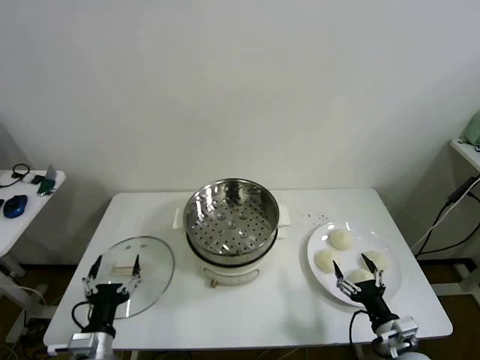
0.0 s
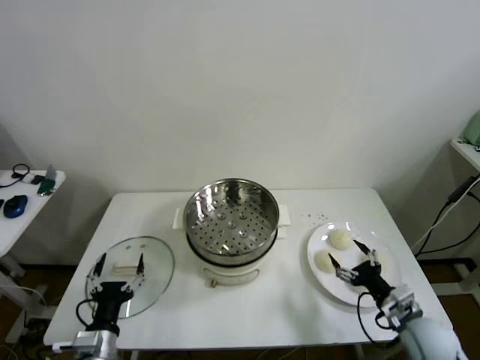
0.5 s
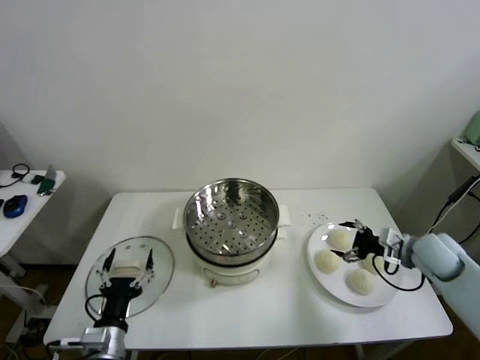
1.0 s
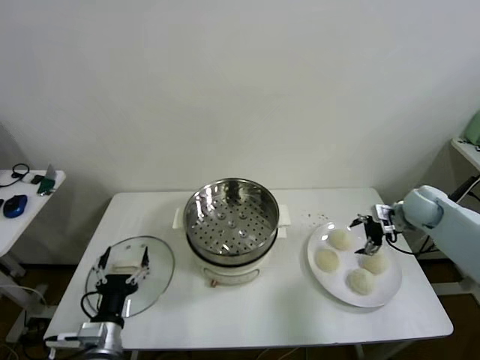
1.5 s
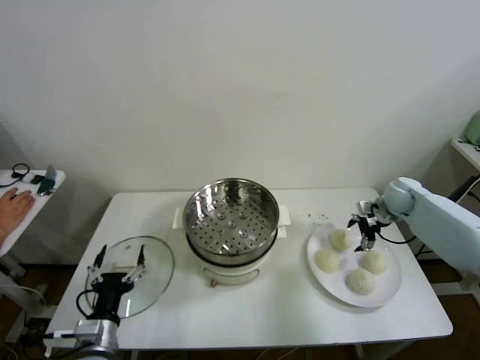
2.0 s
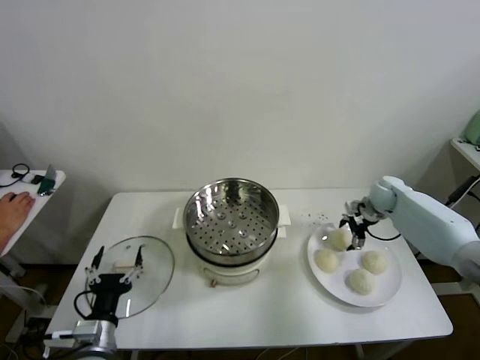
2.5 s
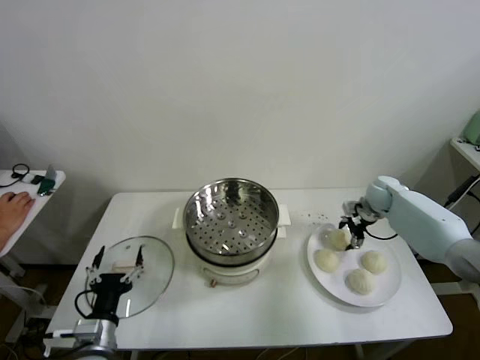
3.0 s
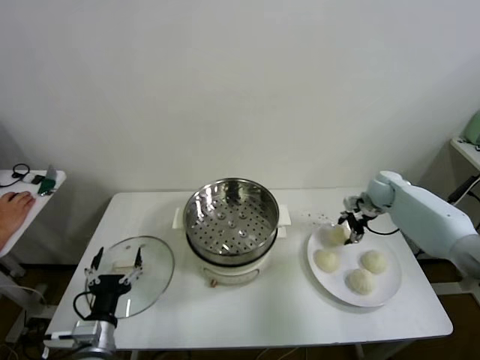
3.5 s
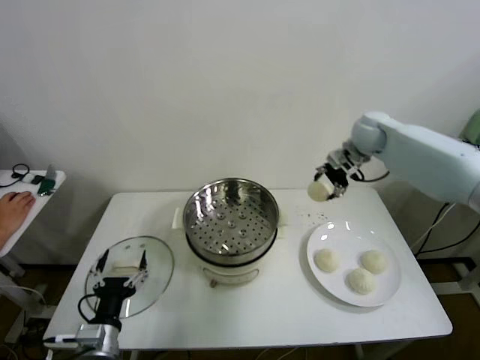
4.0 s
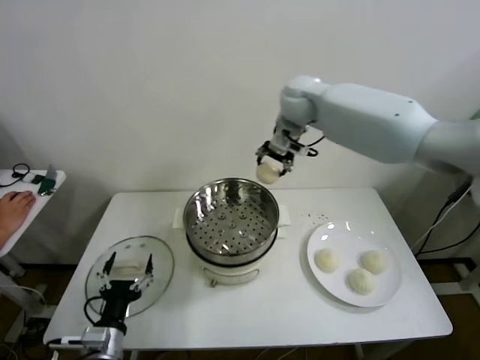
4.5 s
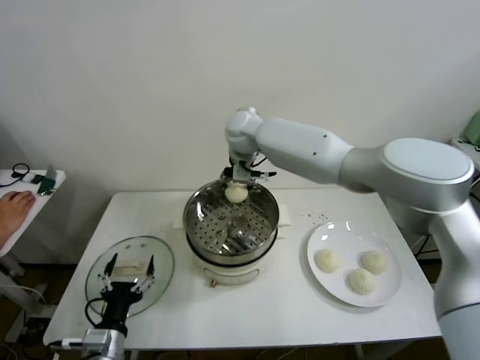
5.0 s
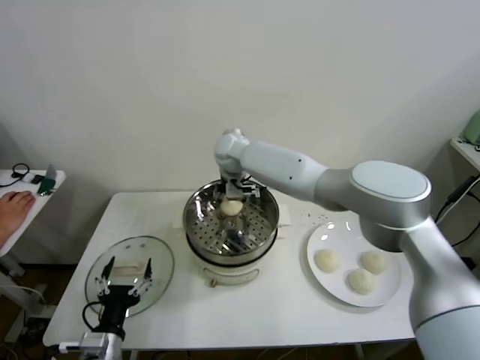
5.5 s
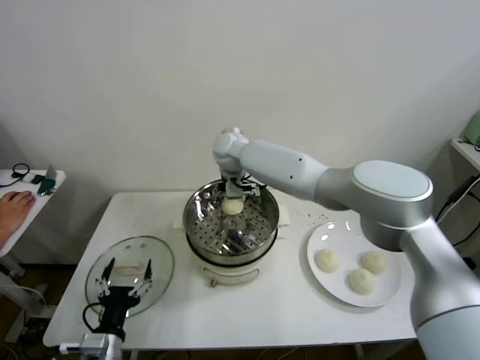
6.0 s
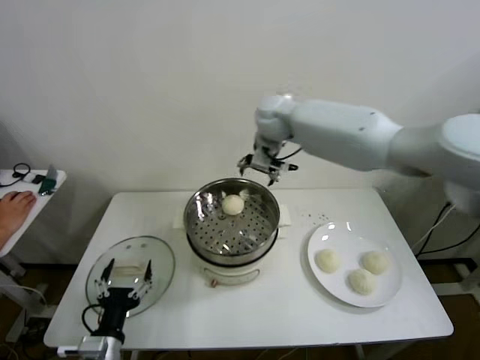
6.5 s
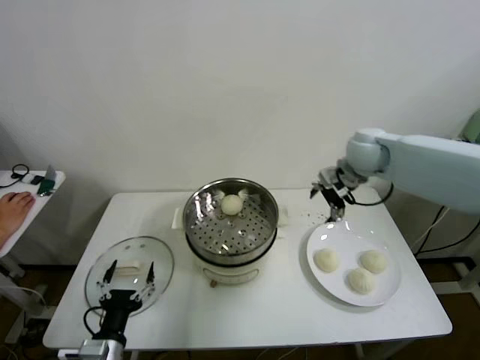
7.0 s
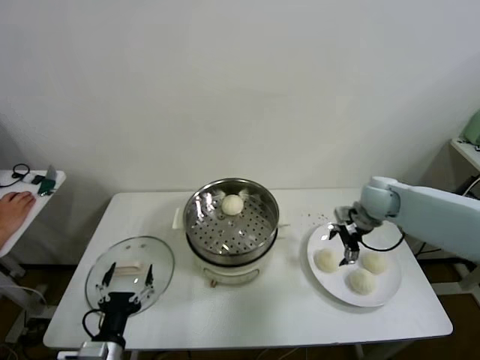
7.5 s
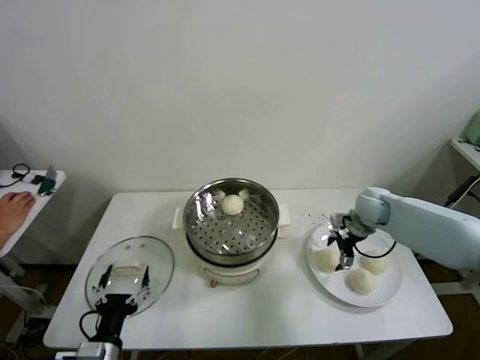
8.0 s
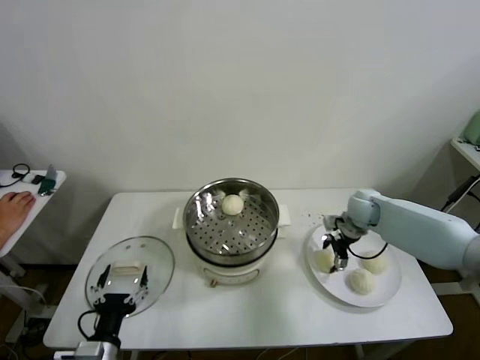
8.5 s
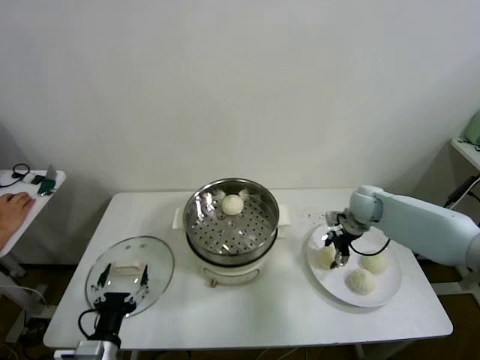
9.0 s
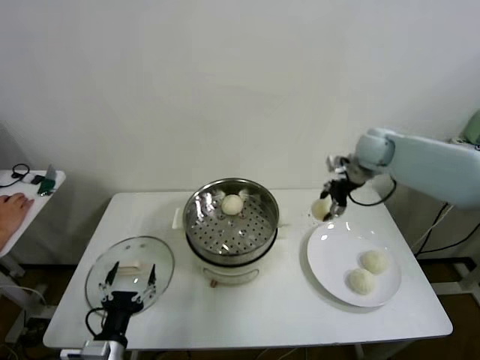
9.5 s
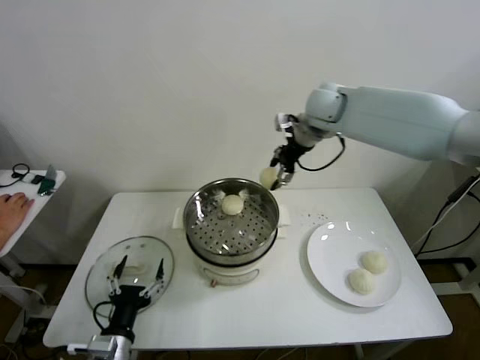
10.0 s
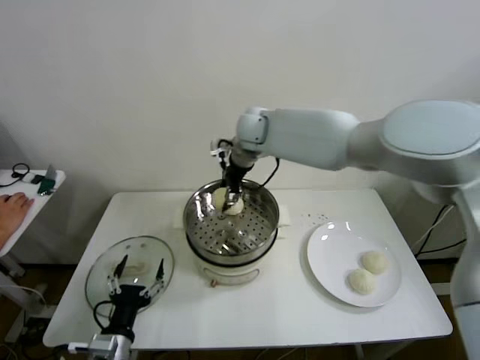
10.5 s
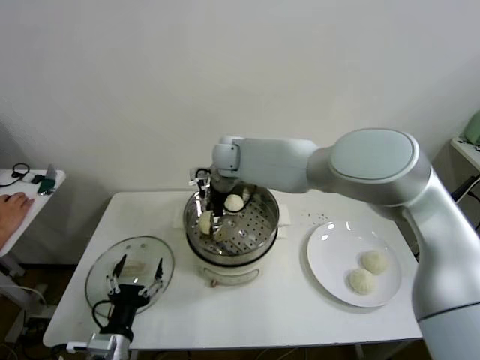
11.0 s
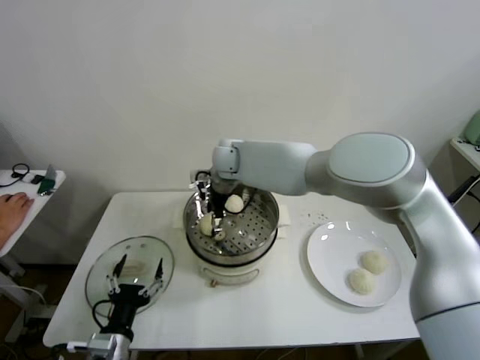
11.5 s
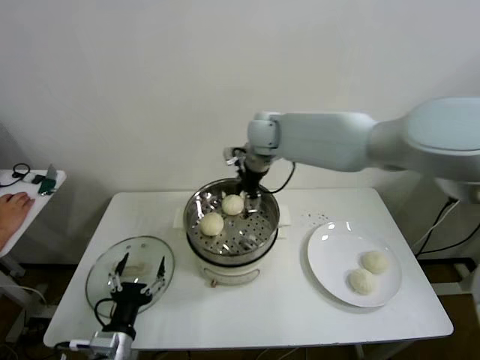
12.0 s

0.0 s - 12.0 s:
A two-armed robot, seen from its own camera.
Step, 0.0 s - 3.0 s: Grasp the baozi in the plate with right gripper.
Step, 3.5 s - 5.5 s: Place the baozi on the steamer with right gripper.
Step, 6.0 s - 8.5 s: Grasp the baozi in the plate with right gripper.
Step, 9.0 s - 11.0 s: Place the baozi on the steamer with right gripper.
2.0 s - 4.0 s: The right gripper goes some 25 cm upward and to the left, and closes its fingers.
4.0 s - 6.0 s: The right gripper moves to the left, roughly 30 cm, and opens its fingers.
6.0 s - 8.0 s: The right gripper is displaced to the right and downward by some 40 cm.
8.0 s - 10.0 s: The right gripper goes some 30 cm upward and to the left, and closes.
10.0 s - 12.0 s: The right gripper heads to the left, covering some 10 cm, and opens.

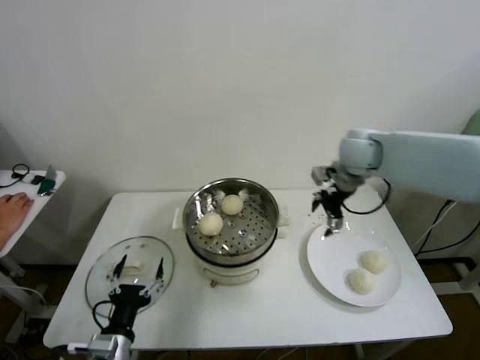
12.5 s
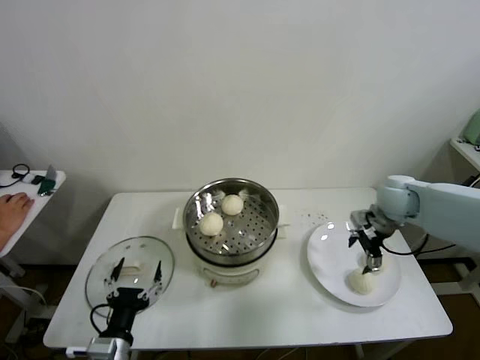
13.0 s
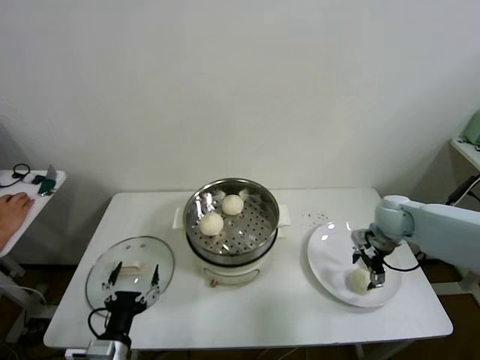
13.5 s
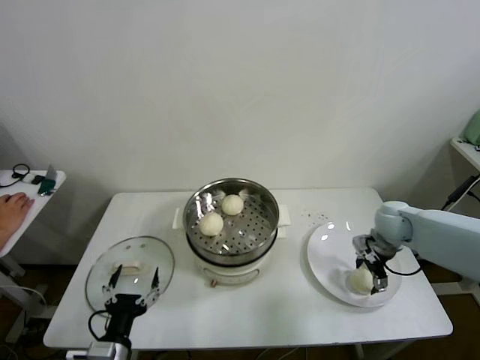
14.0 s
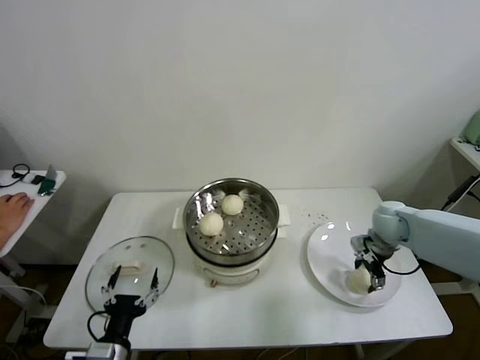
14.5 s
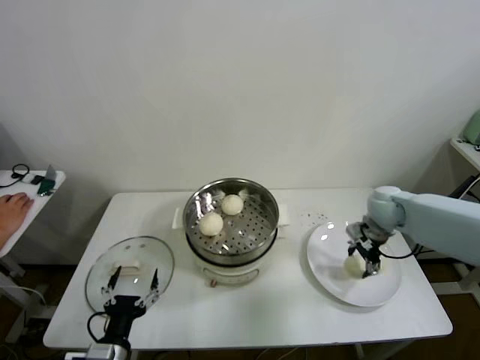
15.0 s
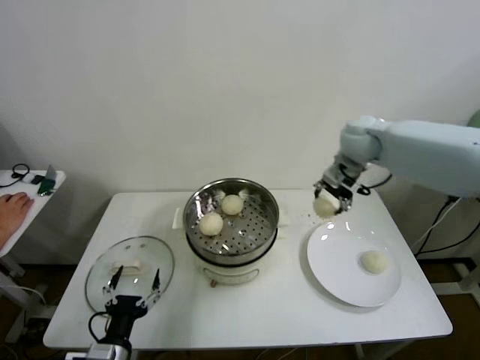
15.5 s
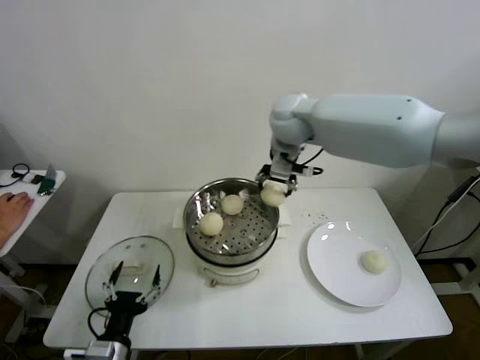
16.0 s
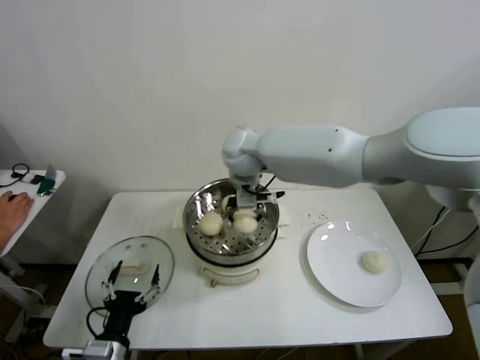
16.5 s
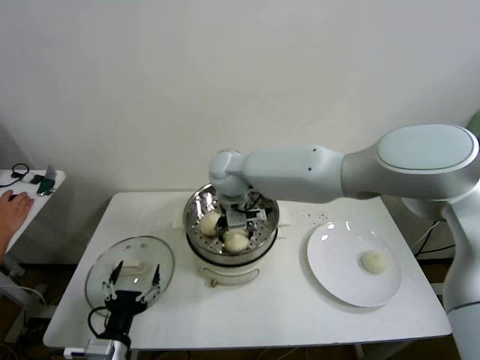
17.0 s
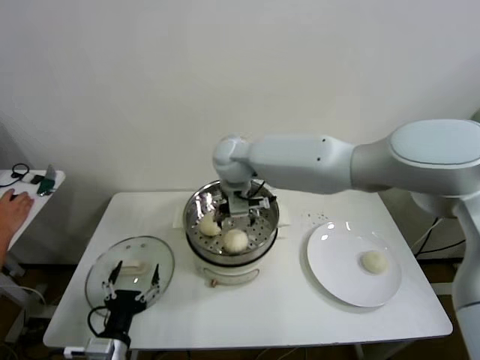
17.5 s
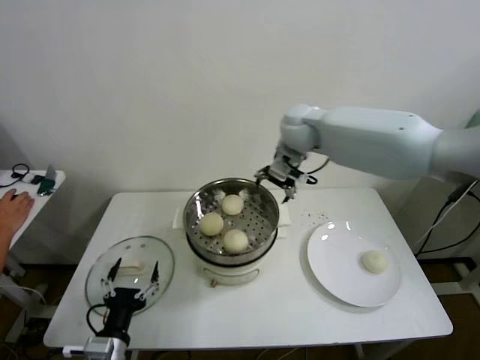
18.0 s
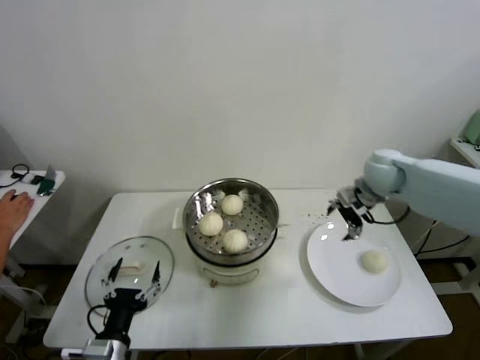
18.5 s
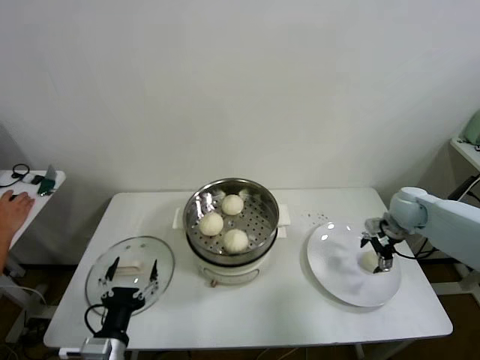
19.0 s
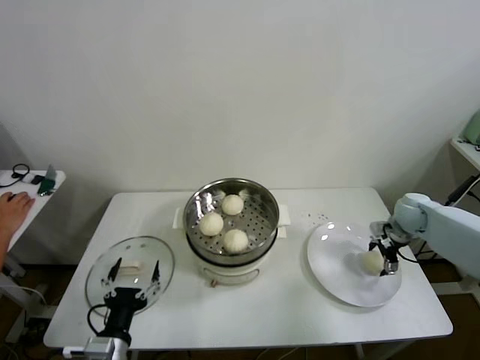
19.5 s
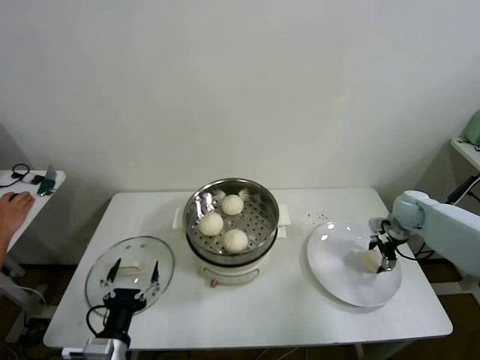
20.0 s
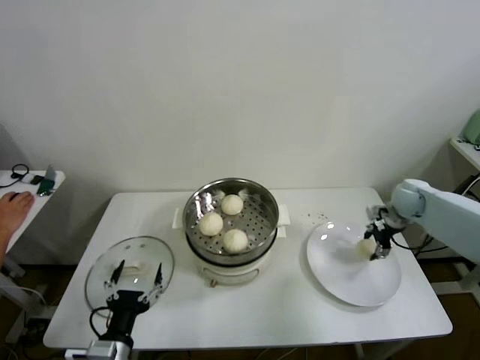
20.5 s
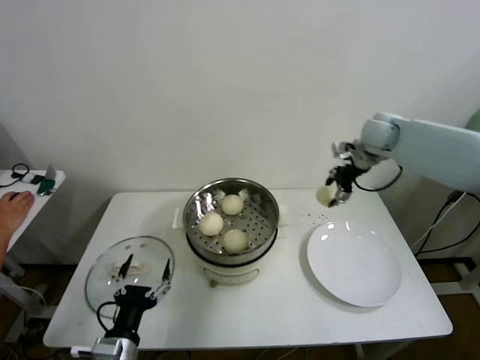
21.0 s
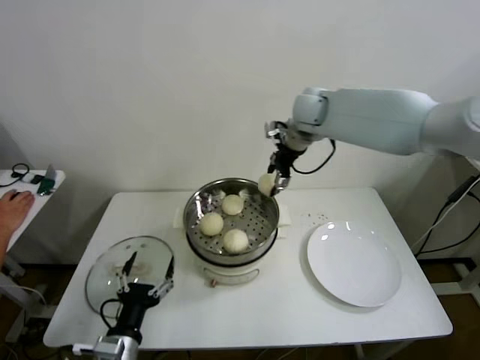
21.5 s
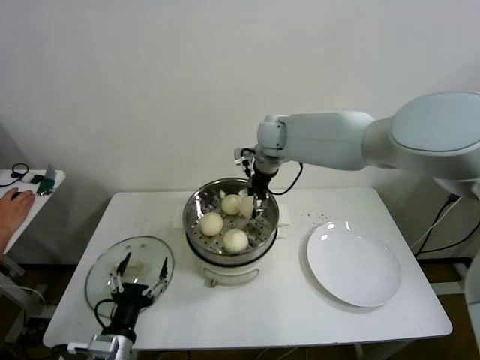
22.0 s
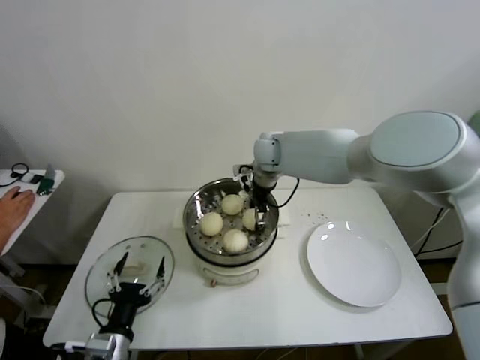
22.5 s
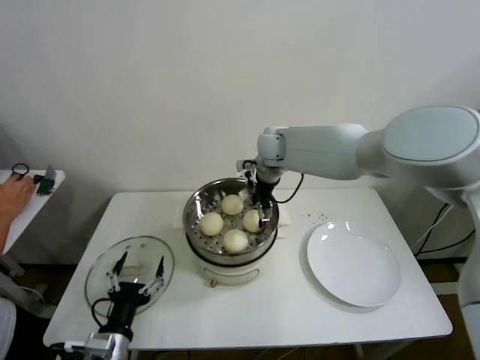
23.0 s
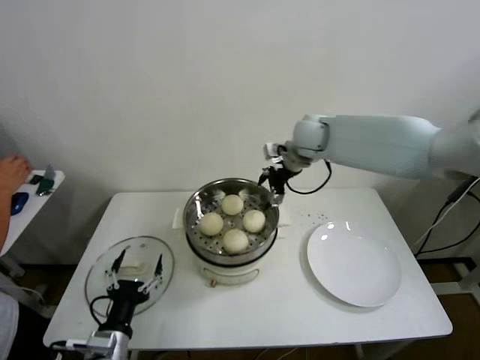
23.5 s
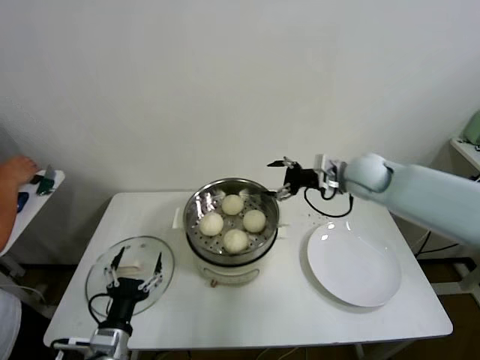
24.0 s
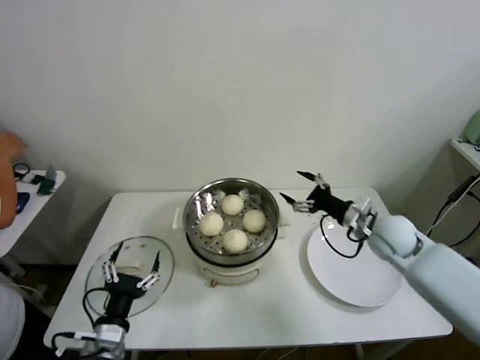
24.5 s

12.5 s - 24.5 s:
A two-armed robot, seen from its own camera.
Step, 12.5 s - 14.0 s: Grasp the baozi in the plate with right gripper.
Step, 14.5 s - 17.0 s: Place the baozi on the steamer with right gripper.
Step, 17.5 s - 20.0 s: Grasp the baozi in the plate with right gripper.
Step, 20.5 s - 22.5 s: Place the baozi on the steamer with right gripper.
12.5 s - 14.5 s: The right gripper shifts approximately 20 cm downward and to the right, and closes.
14.5 s - 16.5 s: The right gripper travels to the left and upward by about 40 cm.
16.5 s - 18.5 s: The right gripper is displaced to the right by about 35 cm, and opens.
18.5 s - 20.5 s: The right gripper heads to the right and downward, covering about 15 cm, and closes up.
20.5 s - 22.5 s: The right gripper moves to the left, some 35 cm, and opens its fingers.
22.5 s - 24.5 s: The right gripper is displaced to the right, backward and downward by some 35 cm, and opens its fingers.

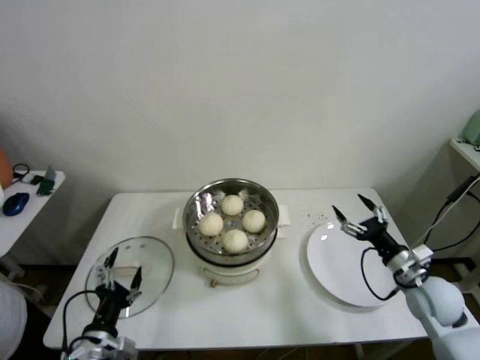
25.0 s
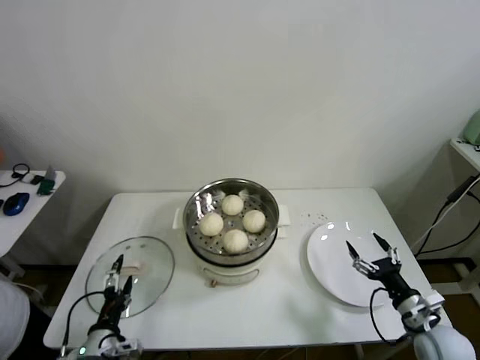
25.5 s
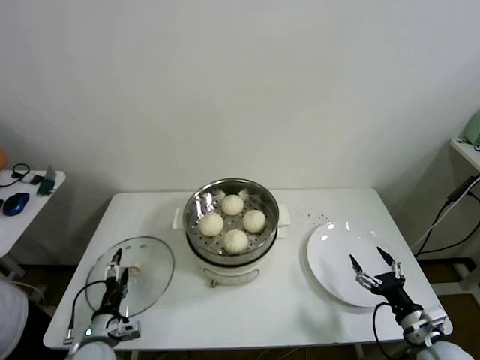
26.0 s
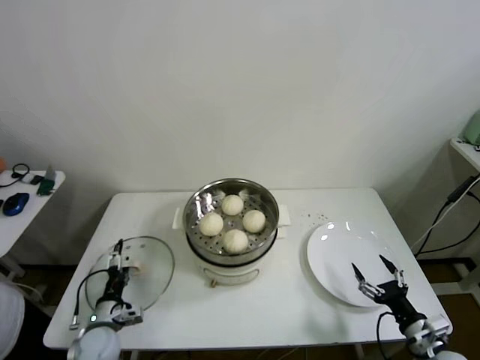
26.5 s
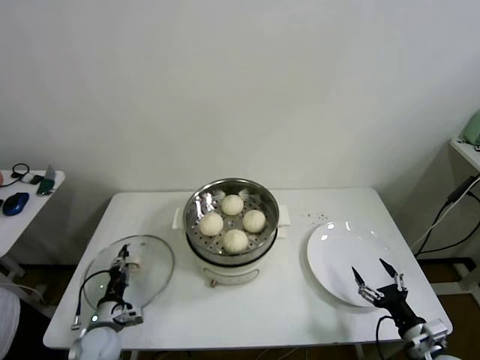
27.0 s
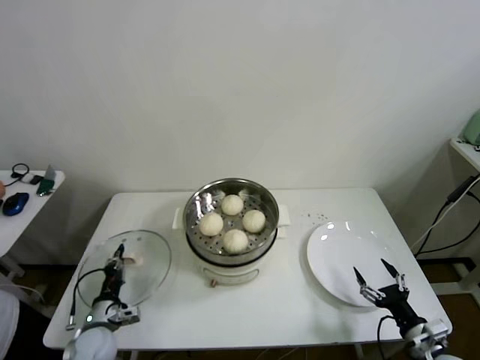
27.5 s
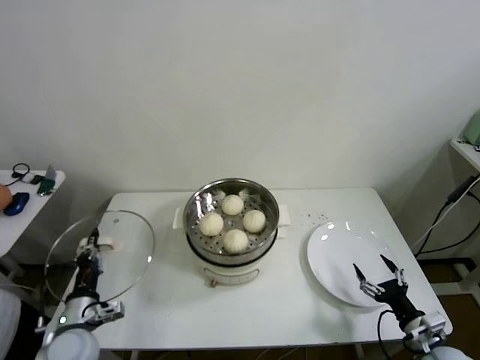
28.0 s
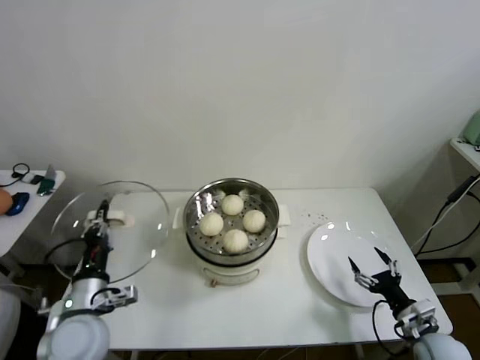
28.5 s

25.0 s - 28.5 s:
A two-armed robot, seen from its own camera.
Step, 25.0 s - 27.0 s: Grasp the pot lid with left gripper.
25.0 s - 27.0 s: The left gripper shifts some 15 cm downward, forward and to the left, and closes up. Meanwhile the right gripper travels backward and downward by roughly 15 cm.
27.0 s - 28.5 s: The left gripper moves upward, roughly 20 cm, and closes.
